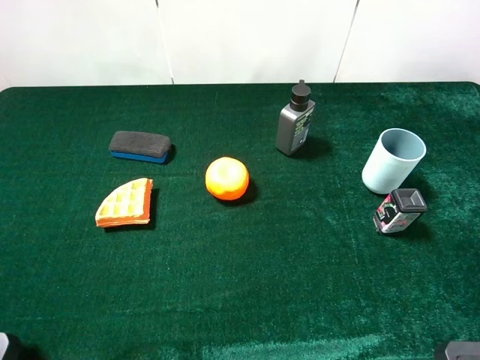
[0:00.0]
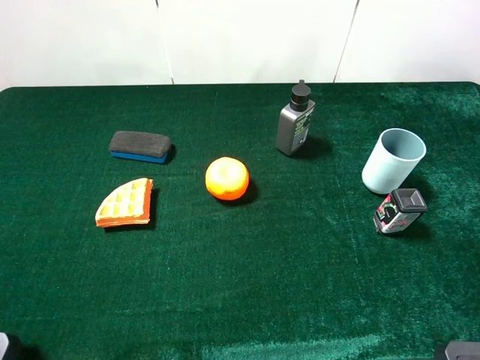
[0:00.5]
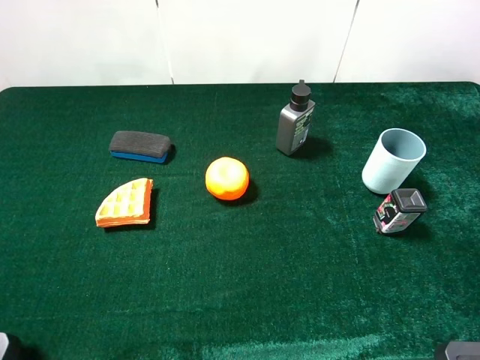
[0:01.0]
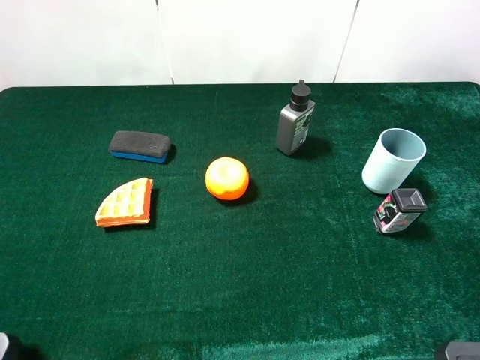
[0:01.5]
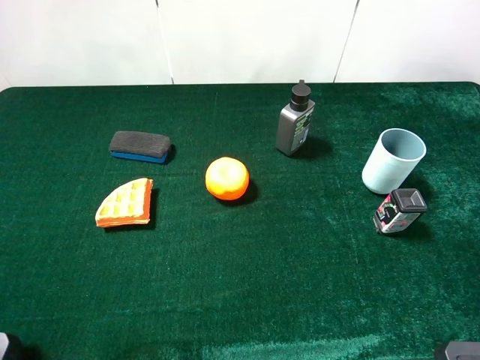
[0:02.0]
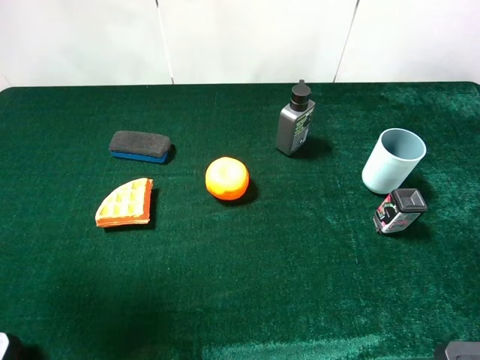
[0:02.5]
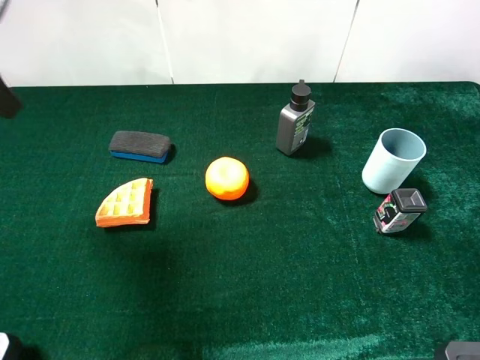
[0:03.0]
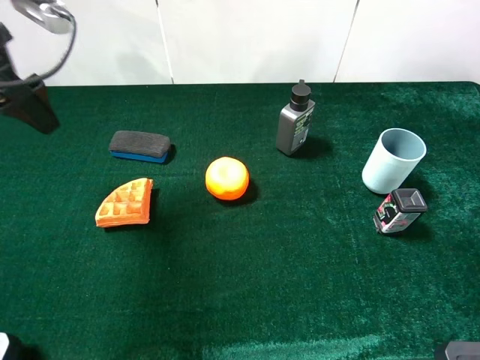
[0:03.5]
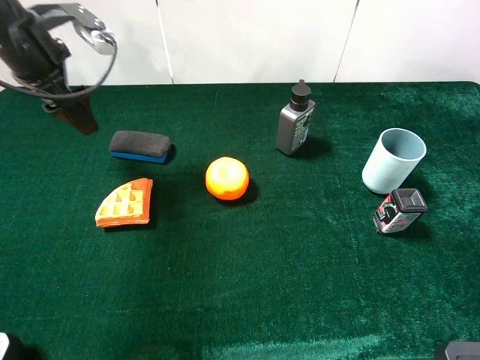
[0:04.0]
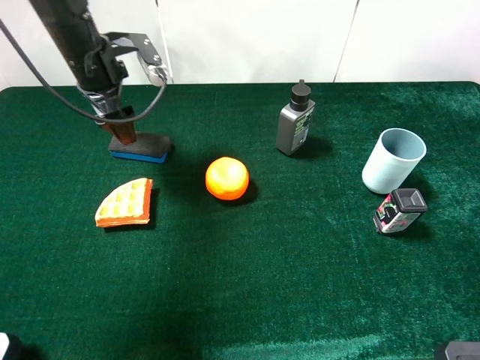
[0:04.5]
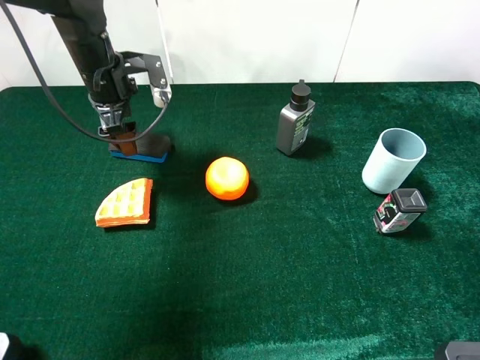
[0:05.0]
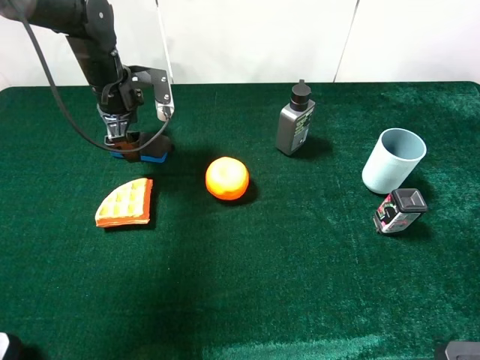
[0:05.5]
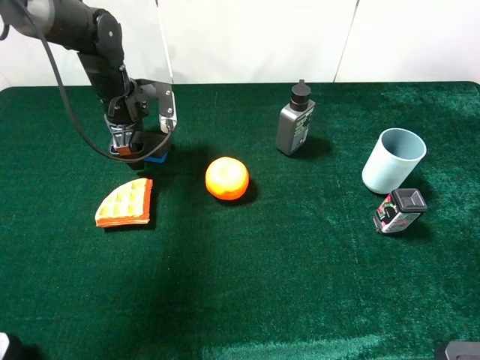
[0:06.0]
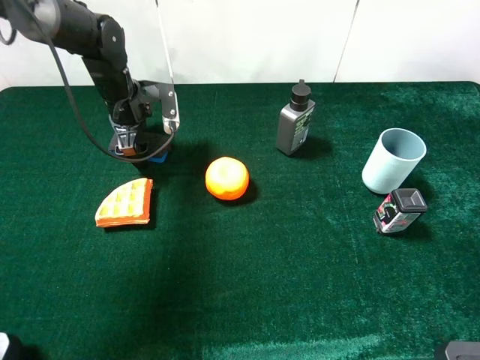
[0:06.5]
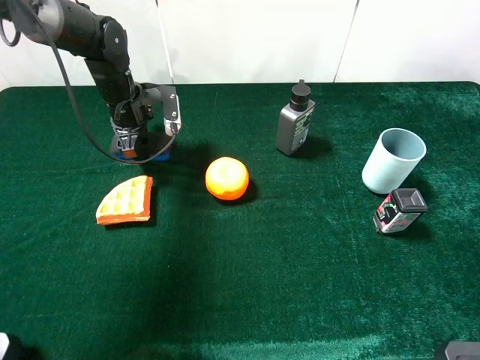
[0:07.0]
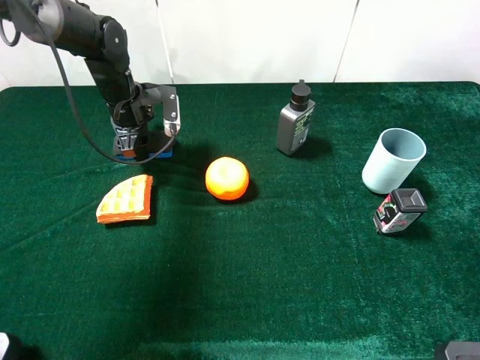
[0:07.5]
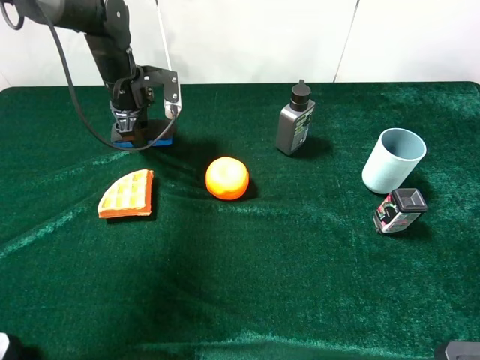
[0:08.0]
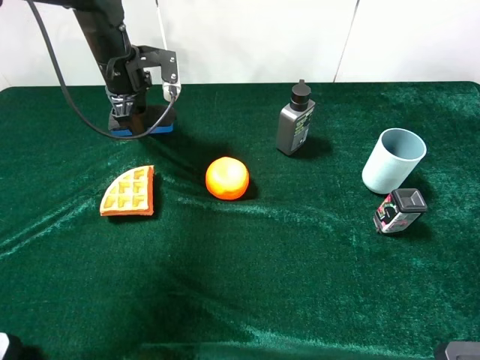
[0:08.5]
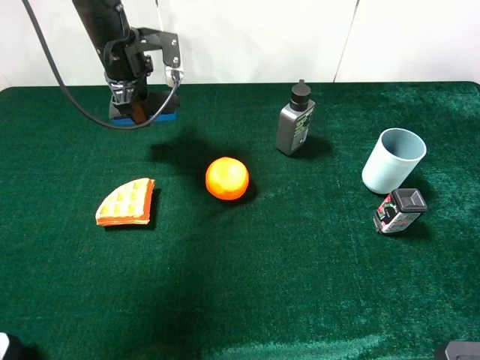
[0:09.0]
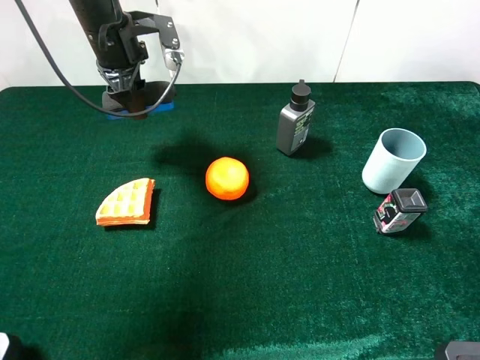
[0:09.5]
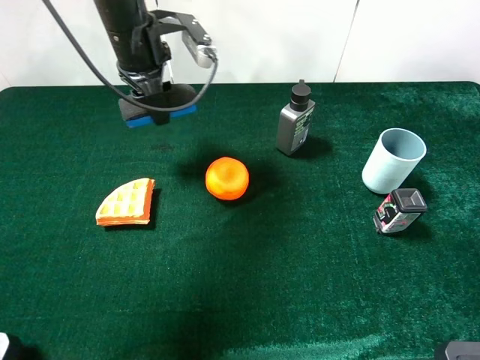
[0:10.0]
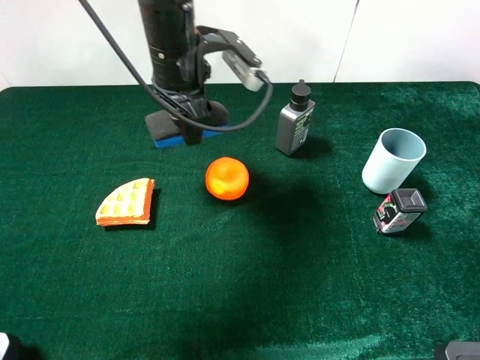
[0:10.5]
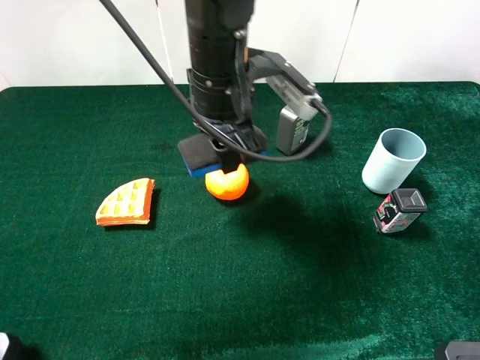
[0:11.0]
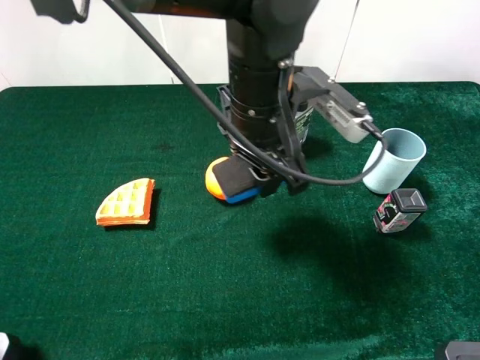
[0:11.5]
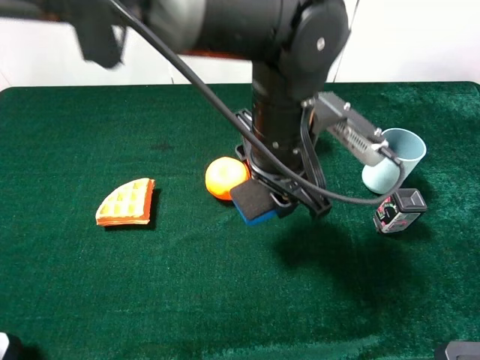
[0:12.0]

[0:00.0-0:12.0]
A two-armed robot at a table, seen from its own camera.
Task of the whole recording: the gripper move the object.
0:02.0 to 0:04.0: The left gripper goes some 30 cm forward.
0:04.0 to 0:06.0: The left gripper shifts some 15 cm downward, to the right and forward.
0:06.0 to 0:08.0: The left gripper closes.
0:08.0 to 0:10.0: The left gripper heads upward and to the right, covering about 10 cm.
0:10.0 to 0:12.0: The left gripper heads to the right and backward, covering roughly 25 cm.

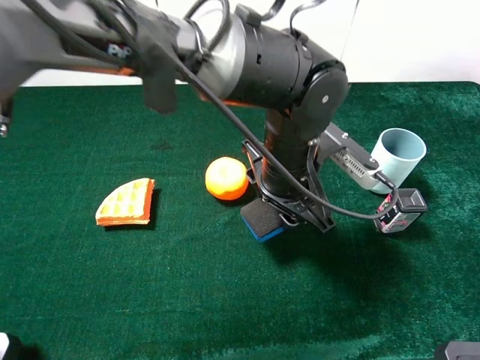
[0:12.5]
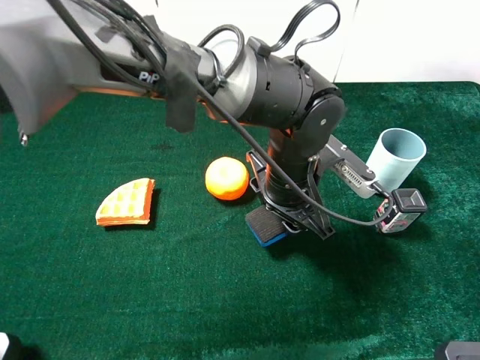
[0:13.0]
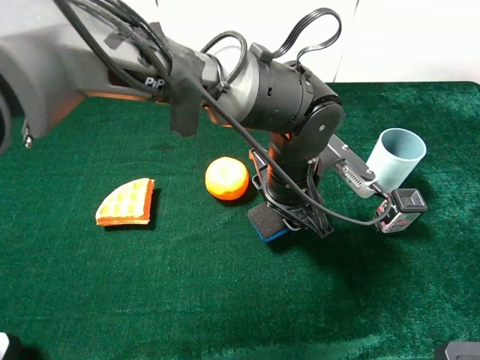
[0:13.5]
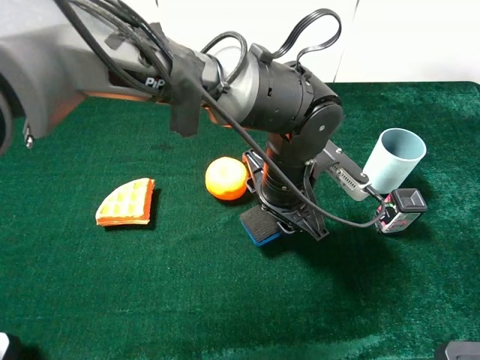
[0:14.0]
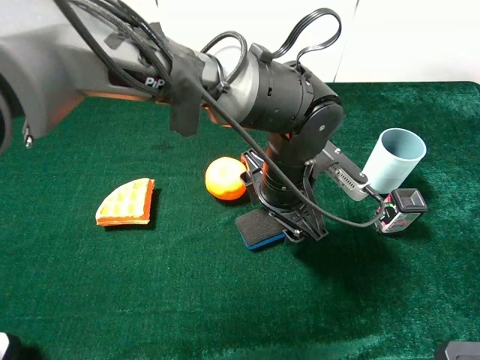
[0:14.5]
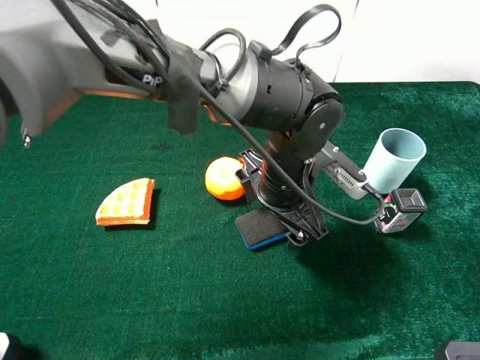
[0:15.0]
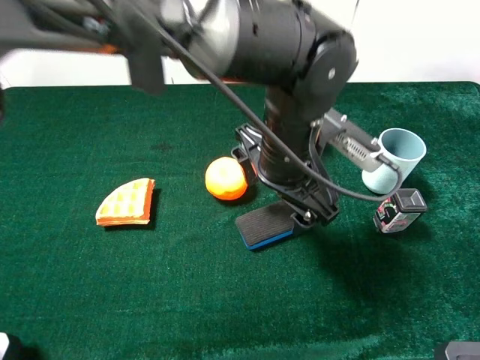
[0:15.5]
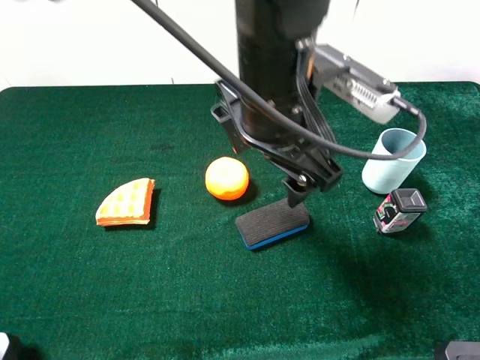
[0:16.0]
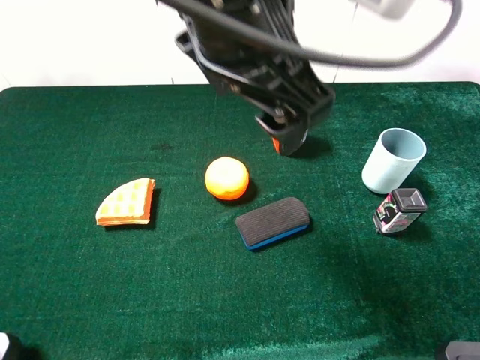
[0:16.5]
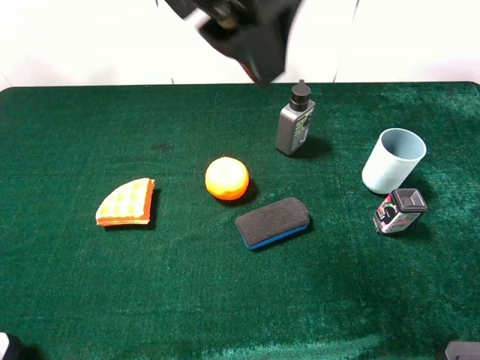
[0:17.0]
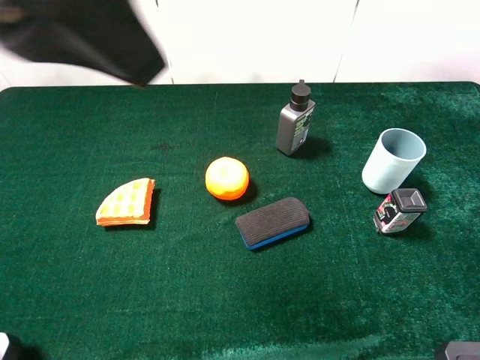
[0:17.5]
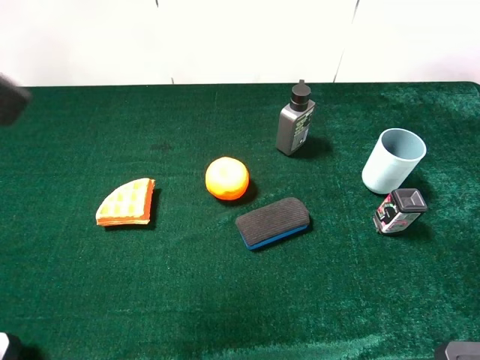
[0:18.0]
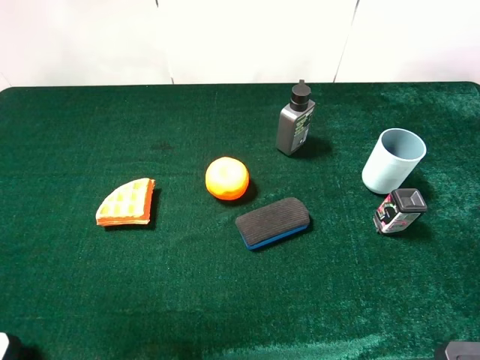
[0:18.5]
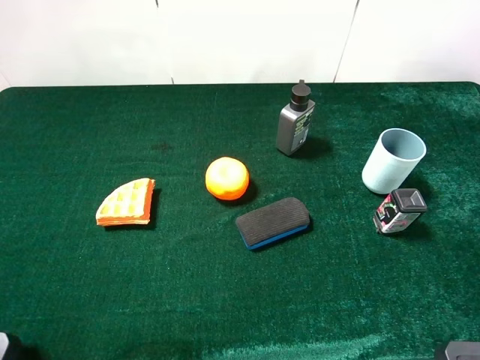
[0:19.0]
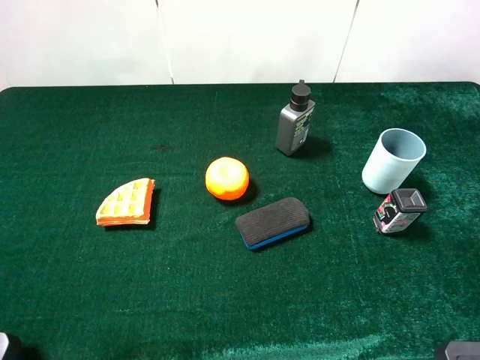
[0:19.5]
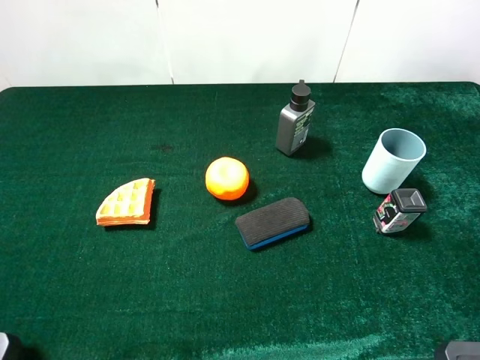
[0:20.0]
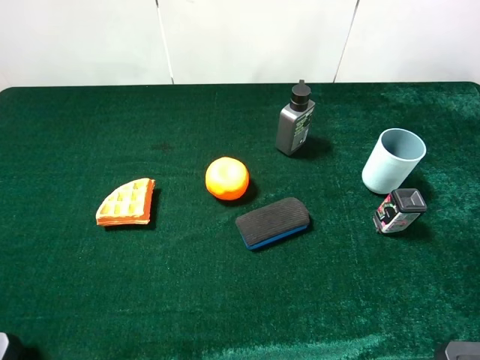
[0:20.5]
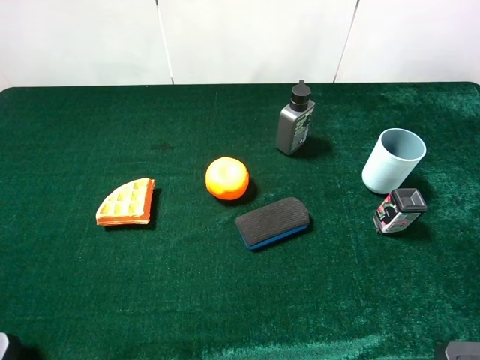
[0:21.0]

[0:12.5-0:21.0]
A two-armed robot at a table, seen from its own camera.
Task of the whole recording: the gripper move the object.
0:12.5 to 0:14.5: The left gripper opens its fingers.
0:14.5 to 0:16.5: The left gripper goes about 25 cm upward.
0:16.5 to 0:19.0: The left gripper heads to the left and backward, covering some 35 cm.
